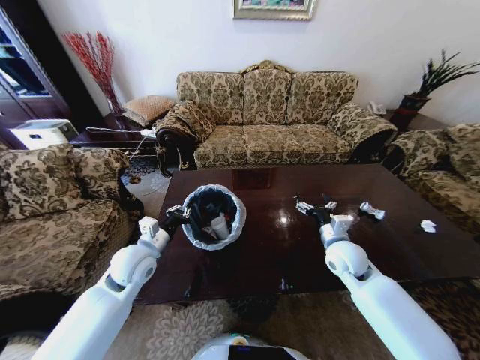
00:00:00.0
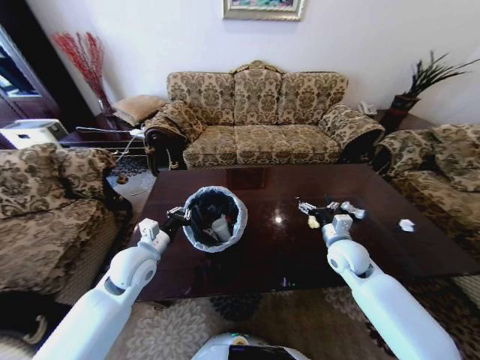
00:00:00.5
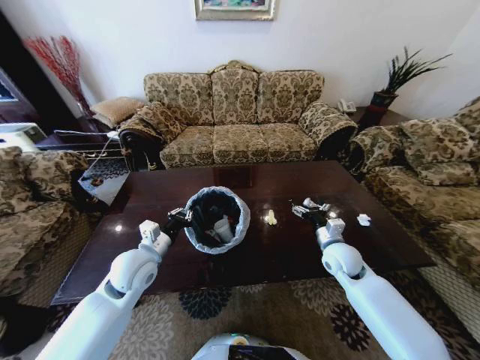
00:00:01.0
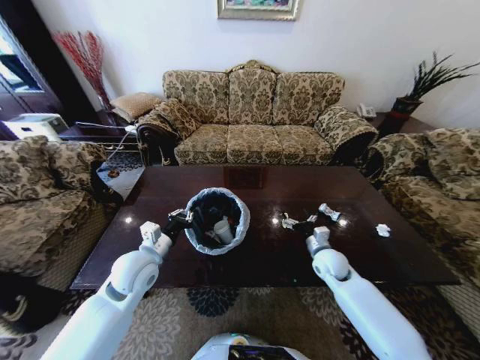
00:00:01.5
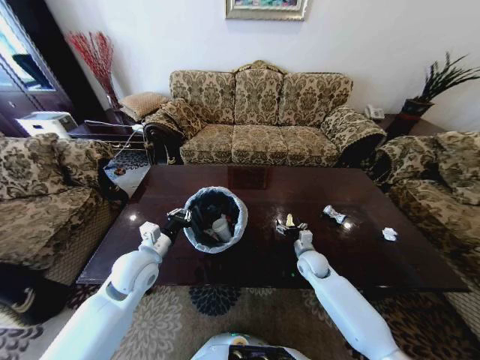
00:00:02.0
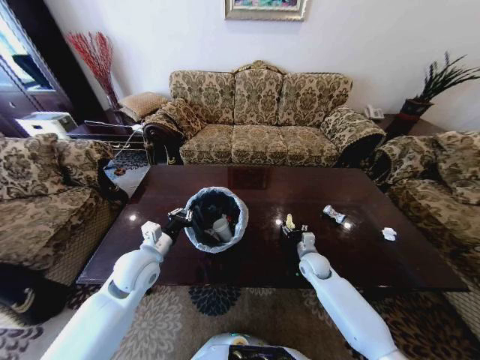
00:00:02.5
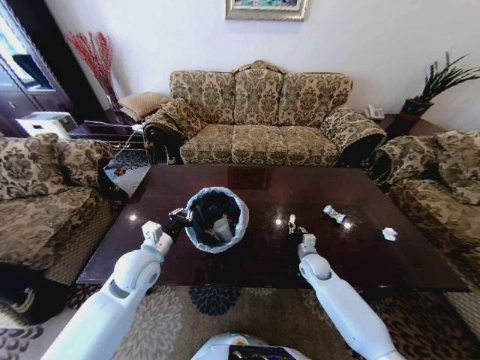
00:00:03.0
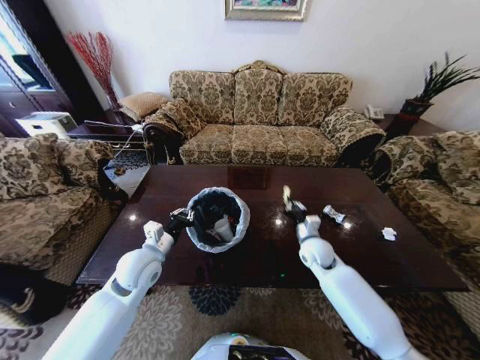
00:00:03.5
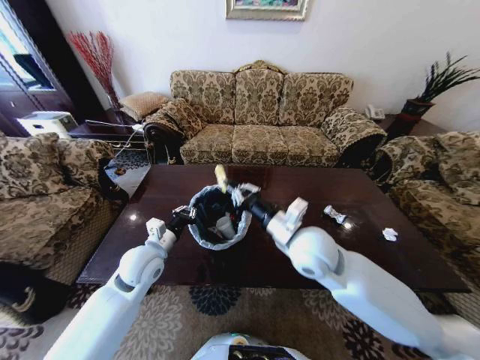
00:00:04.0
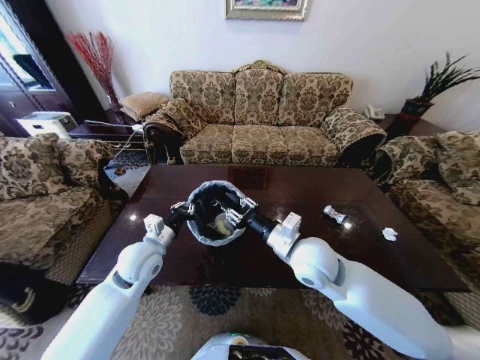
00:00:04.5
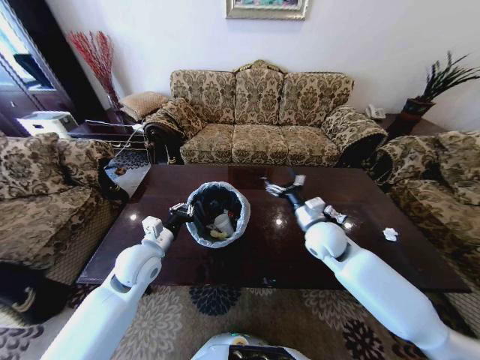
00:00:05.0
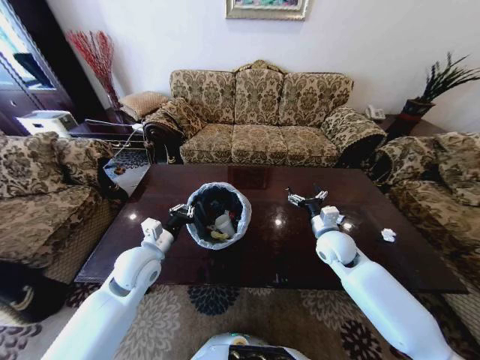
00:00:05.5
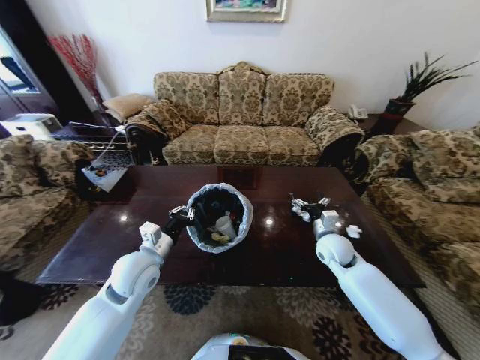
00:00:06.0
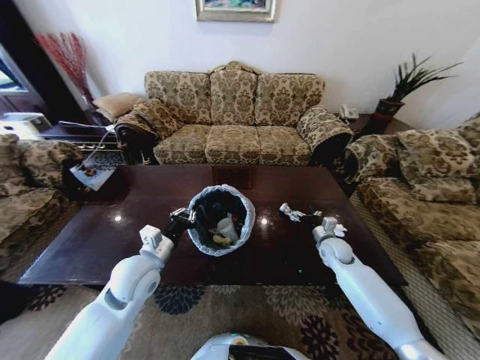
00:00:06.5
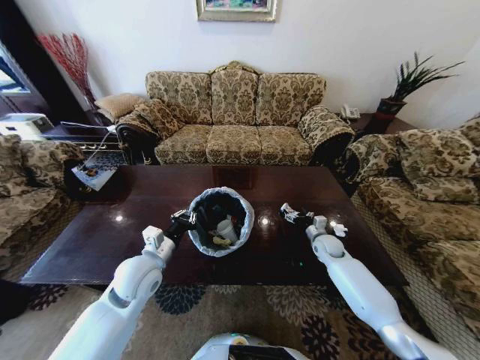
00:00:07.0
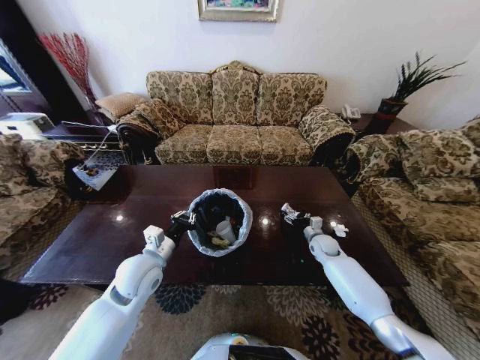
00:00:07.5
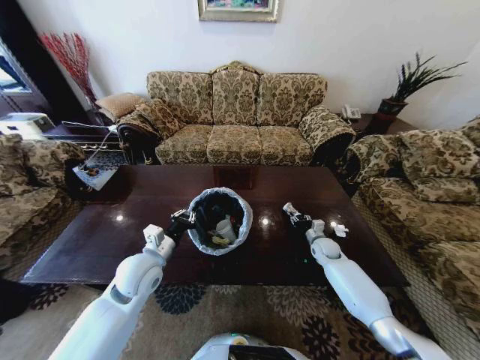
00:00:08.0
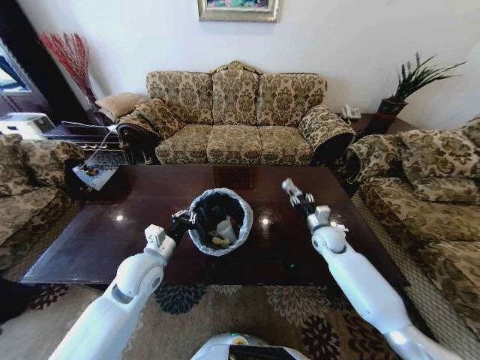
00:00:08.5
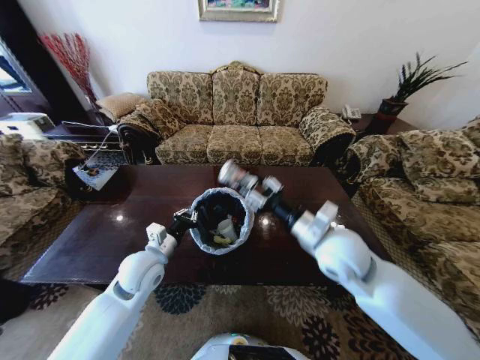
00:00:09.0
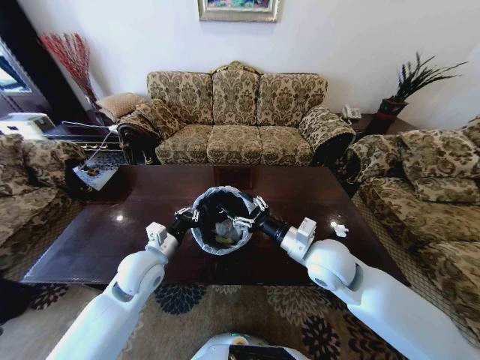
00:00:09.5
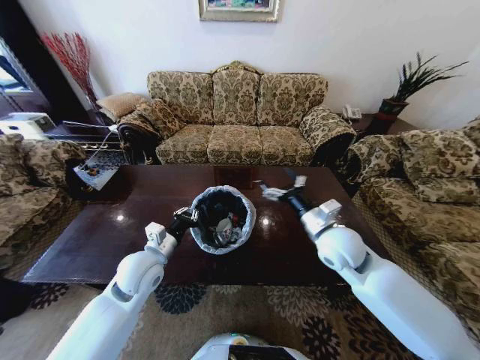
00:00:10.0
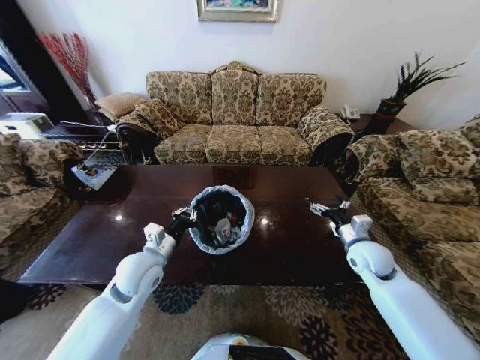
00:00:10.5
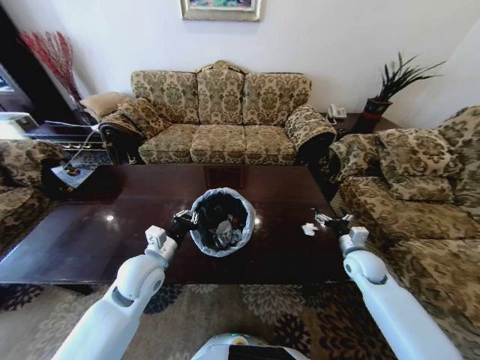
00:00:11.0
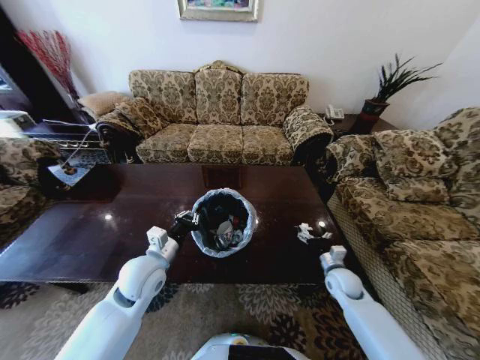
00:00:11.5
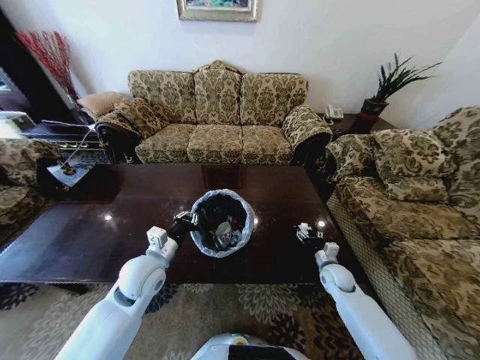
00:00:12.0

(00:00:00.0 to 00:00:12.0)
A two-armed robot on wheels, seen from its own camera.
Task of the whole recording: Move to the front of the table and place the trash on the table into the trash bin.
00:00:00.0 - 00:00:02.0: The right gripper travels downward by approximately 15 cm.
00:00:02.0 - 00:00:04.0: The right gripper goes approximately 30 cm upward and to the left, and closes its fingers.
00:00:04.0 - 00:00:06.0: The right gripper shifts approximately 20 cm to the right, downward and forward, and opens.
00:00:06.0 - 00:00:08.0: The right gripper is displaced downward and forward by roughly 15 cm, and closes up.
00:00:08.0 - 00:00:10.0: The right gripper heads upward, backward and to the left, covering roughly 30 cm, and opens its fingers.
00:00:10.0 - 00:00:12.0: The right gripper heads downward and to the right, covering about 25 cm.

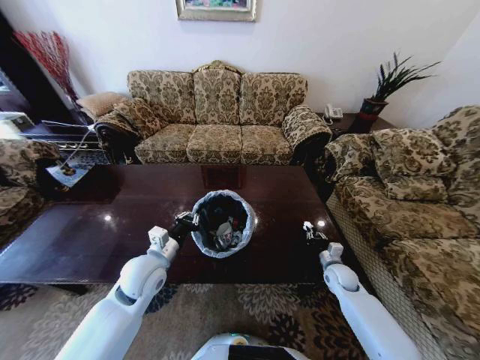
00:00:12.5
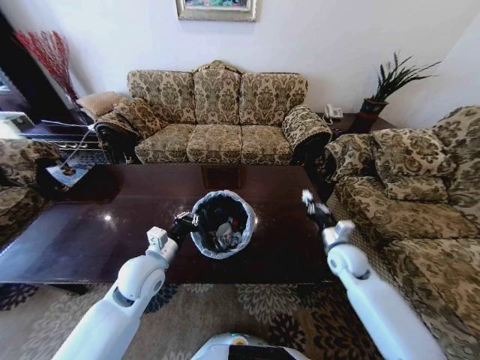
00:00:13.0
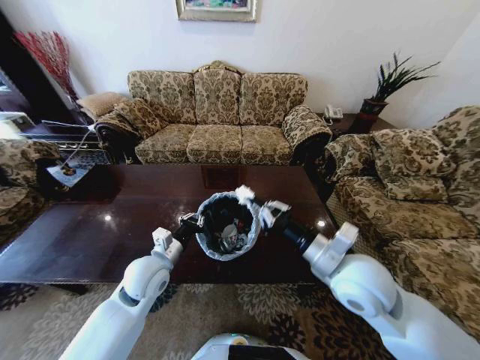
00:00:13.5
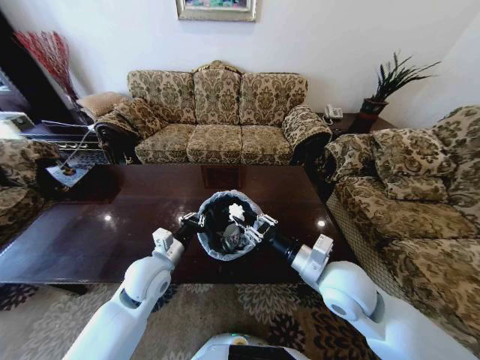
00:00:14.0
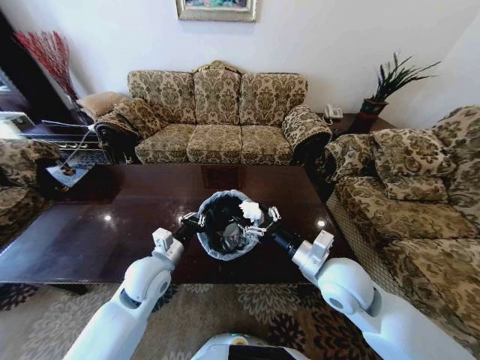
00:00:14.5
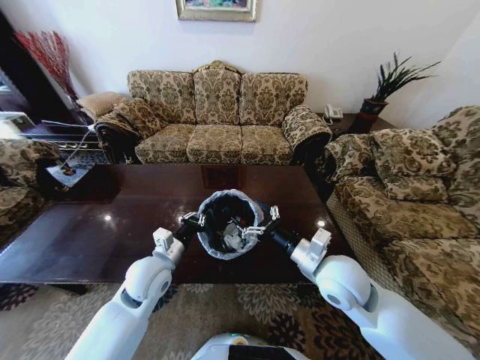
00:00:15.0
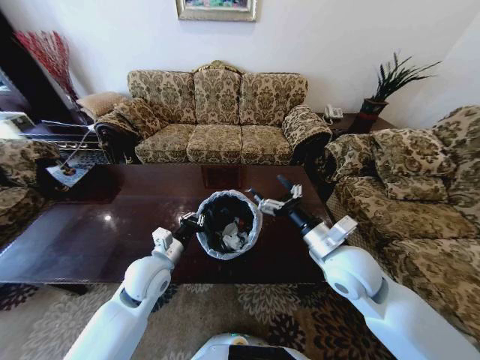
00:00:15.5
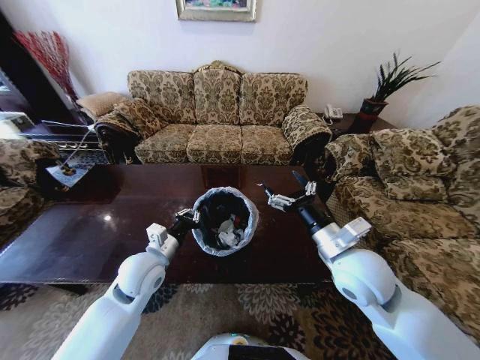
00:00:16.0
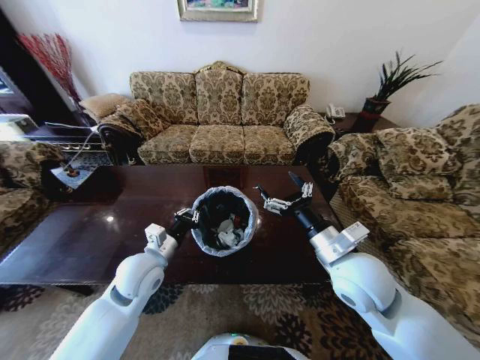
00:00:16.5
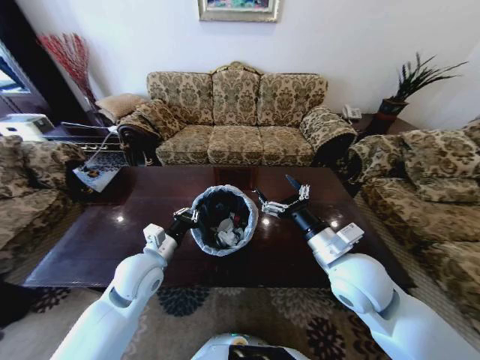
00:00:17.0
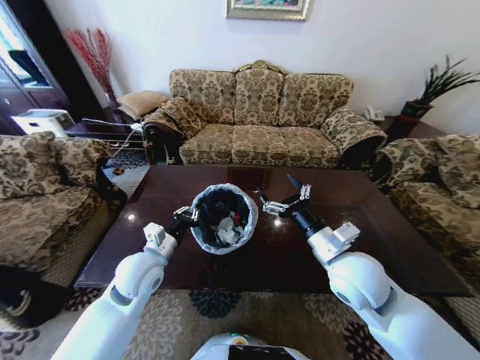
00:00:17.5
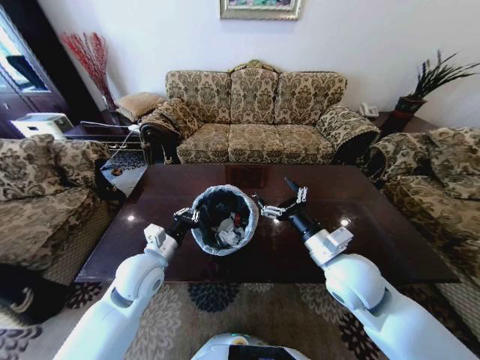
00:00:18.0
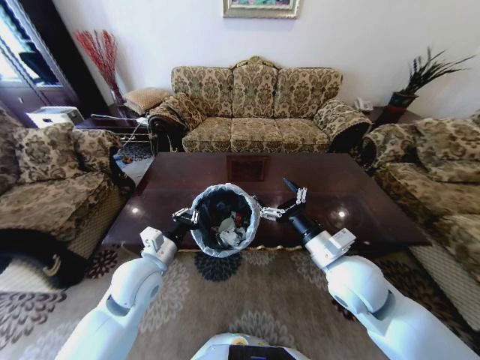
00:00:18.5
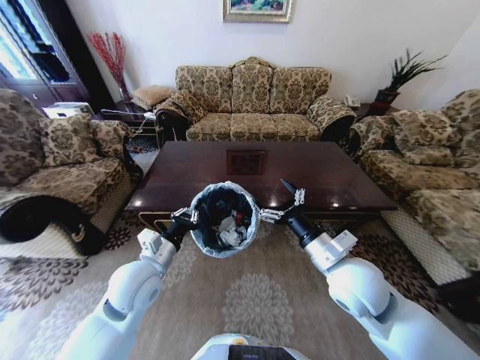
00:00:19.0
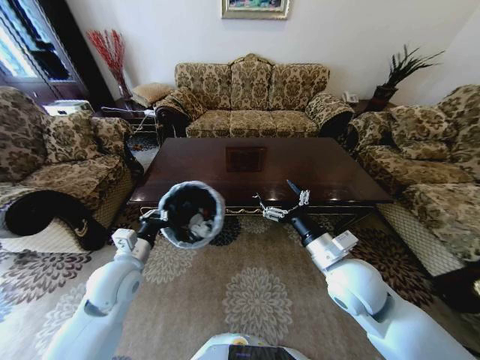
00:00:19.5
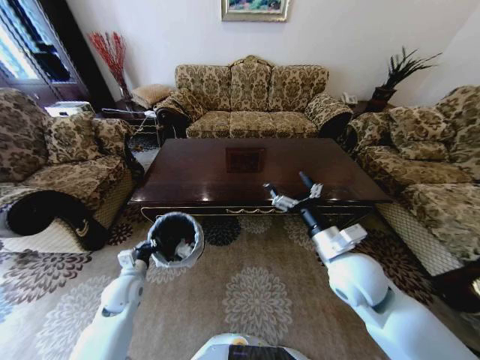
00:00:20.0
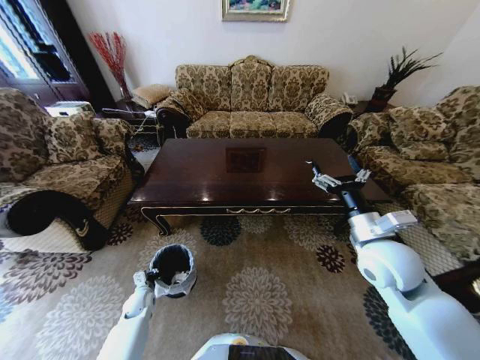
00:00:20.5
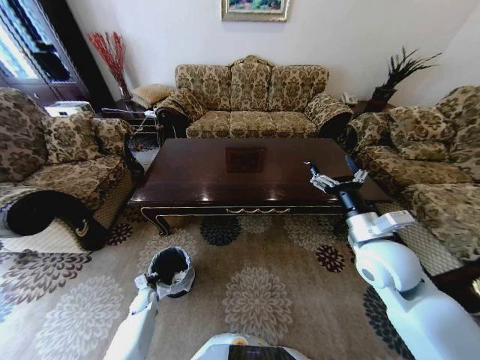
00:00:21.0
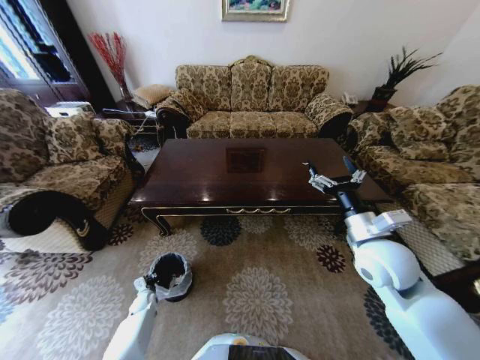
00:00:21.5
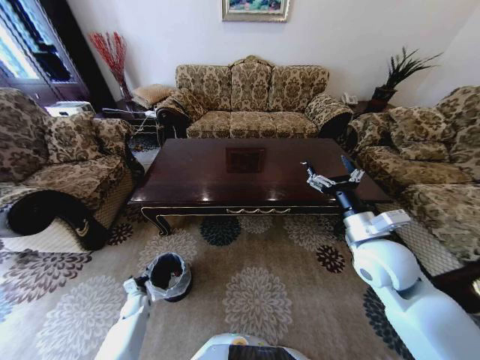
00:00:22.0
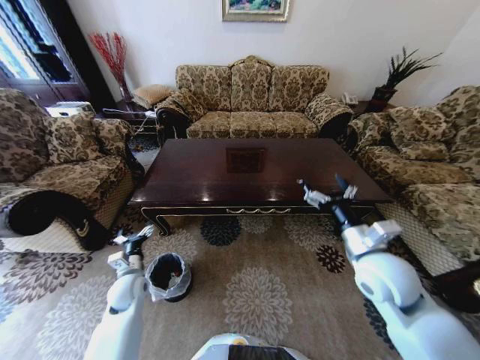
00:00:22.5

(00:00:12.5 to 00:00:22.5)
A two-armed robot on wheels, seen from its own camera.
Task of the whole recording: Move to the front of the table and place the trash on the table into the trash bin.
00:00:12.5 - 00:00:14.5: The right gripper shifts some 30 cm upward, to the left and backward, and opens up.
00:00:18.5 - 00:00:20.5: The right gripper moves to the right, about 10 cm. The left gripper goes about 35 cm downward and to the left.
00:00:20.5 - 00:00:22.5: The left gripper goes about 15 cm upward, and opens up.

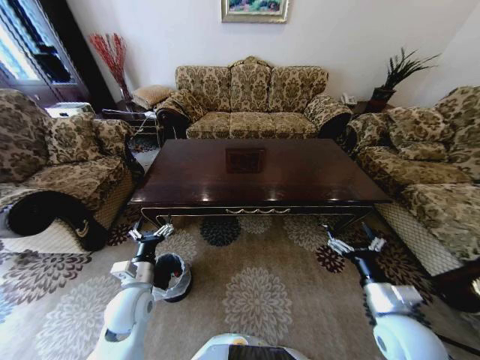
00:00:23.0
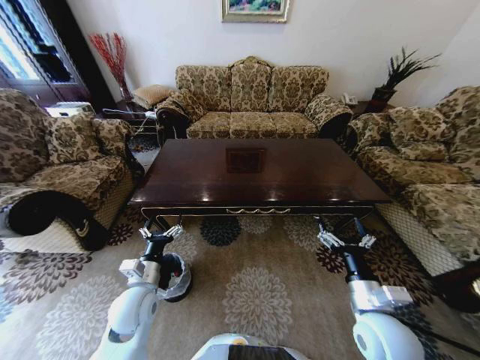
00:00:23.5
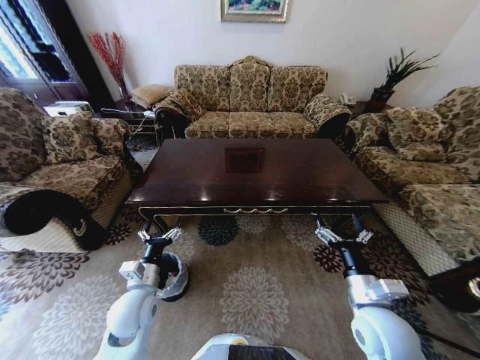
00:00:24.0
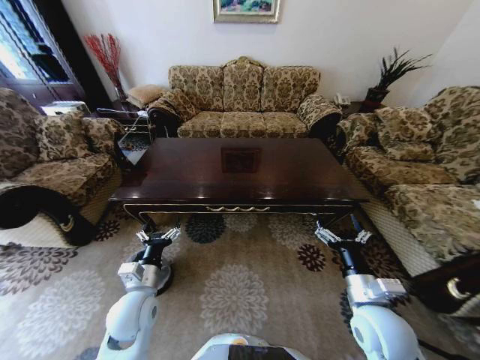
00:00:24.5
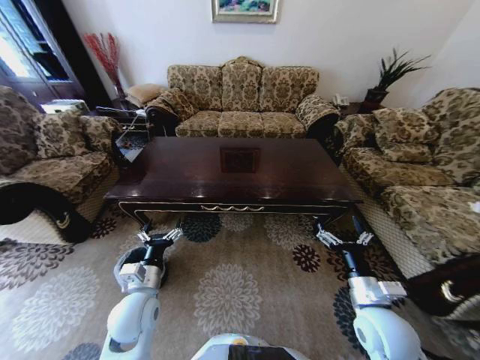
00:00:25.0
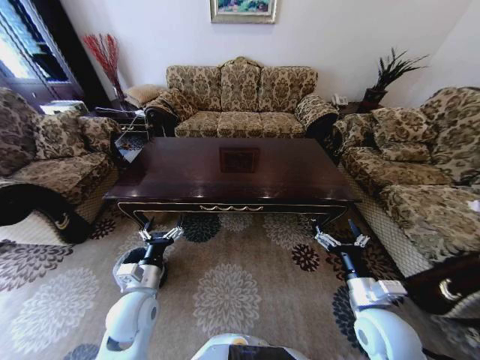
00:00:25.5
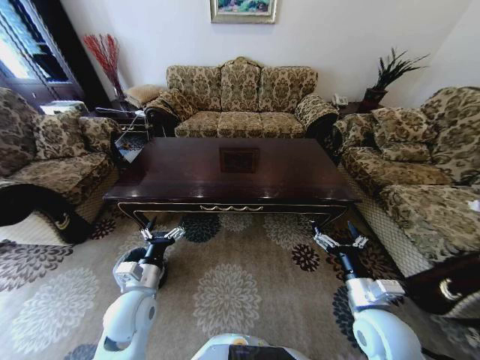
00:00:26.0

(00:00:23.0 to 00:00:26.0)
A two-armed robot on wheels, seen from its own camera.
Task of the whole recording: Move to the front of the table and place the trash on the table into the trash bin.
00:00:23.0 - 00:00:24.5: The right gripper travels to the left by about 5 cm.
00:00:24.5 - 00:00:26.0: The grippers make only small movements.
